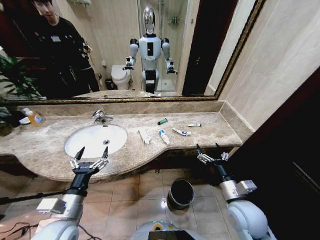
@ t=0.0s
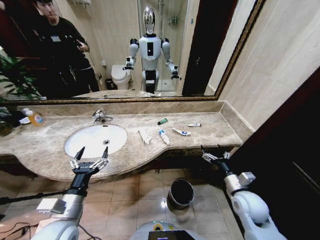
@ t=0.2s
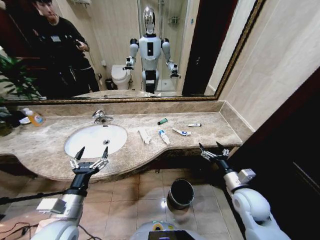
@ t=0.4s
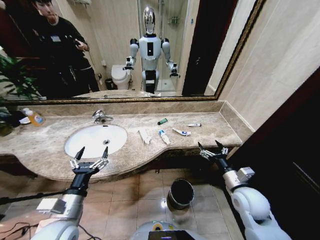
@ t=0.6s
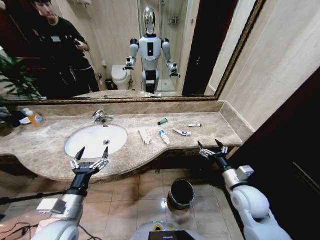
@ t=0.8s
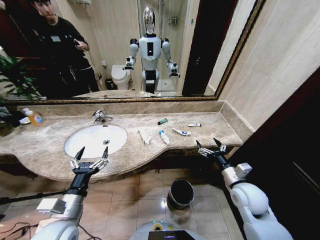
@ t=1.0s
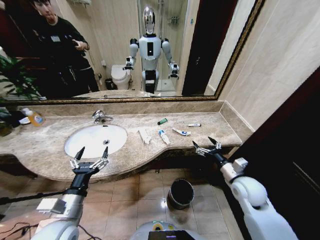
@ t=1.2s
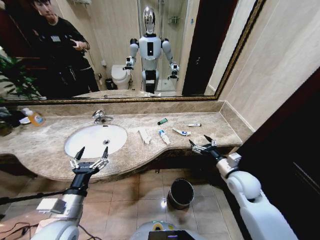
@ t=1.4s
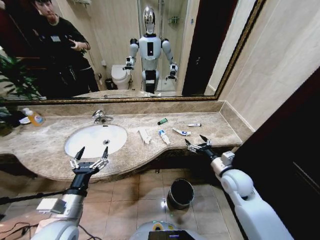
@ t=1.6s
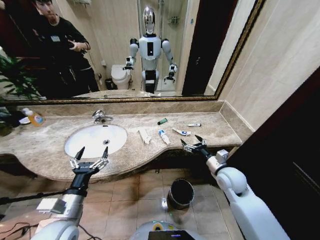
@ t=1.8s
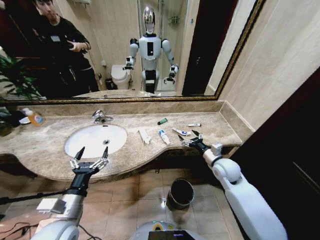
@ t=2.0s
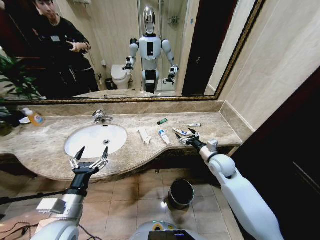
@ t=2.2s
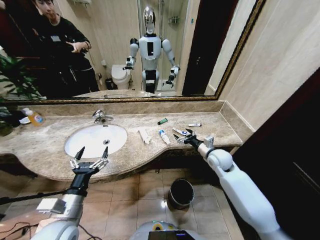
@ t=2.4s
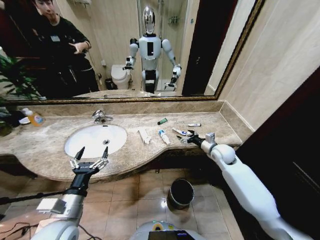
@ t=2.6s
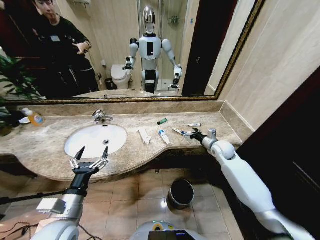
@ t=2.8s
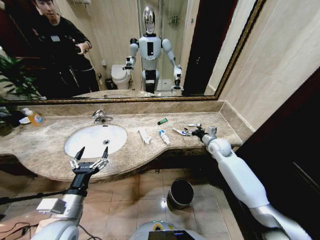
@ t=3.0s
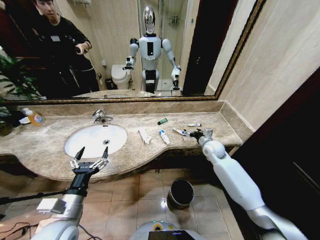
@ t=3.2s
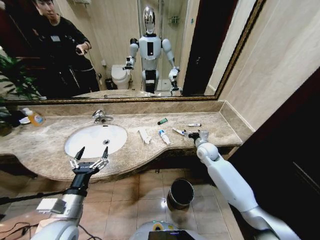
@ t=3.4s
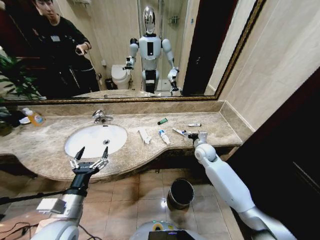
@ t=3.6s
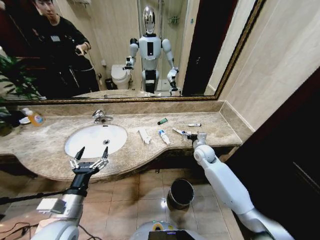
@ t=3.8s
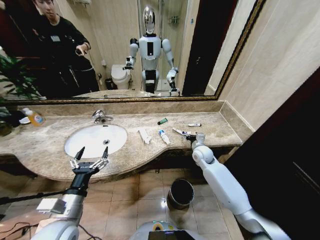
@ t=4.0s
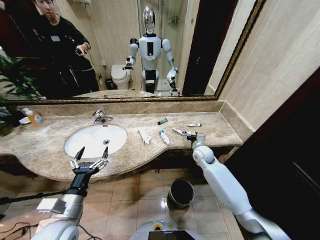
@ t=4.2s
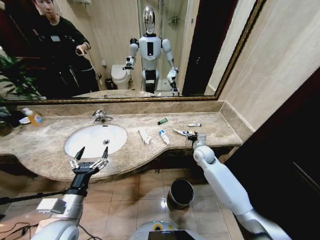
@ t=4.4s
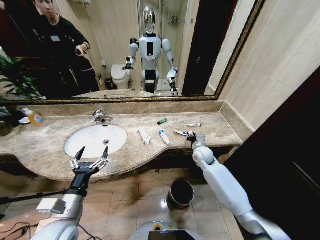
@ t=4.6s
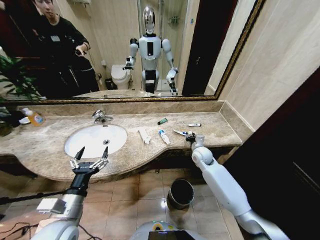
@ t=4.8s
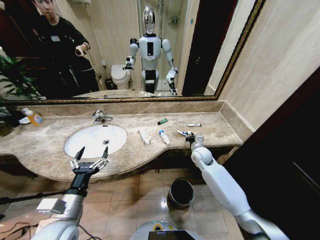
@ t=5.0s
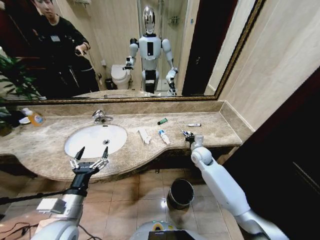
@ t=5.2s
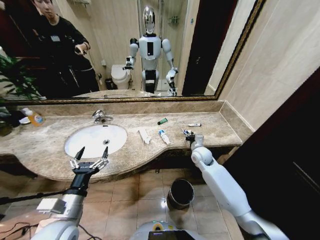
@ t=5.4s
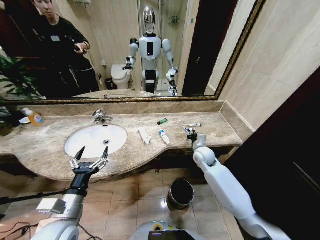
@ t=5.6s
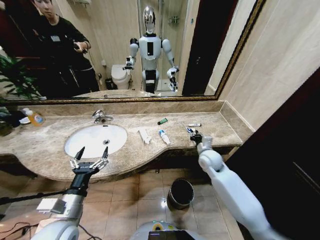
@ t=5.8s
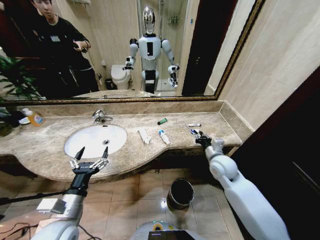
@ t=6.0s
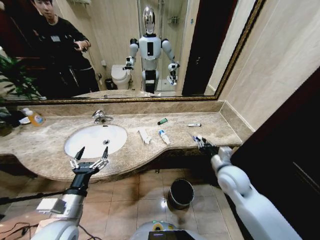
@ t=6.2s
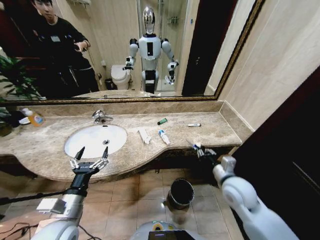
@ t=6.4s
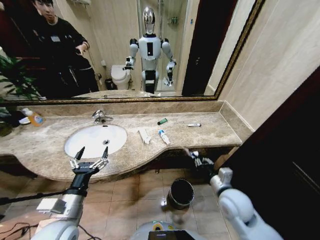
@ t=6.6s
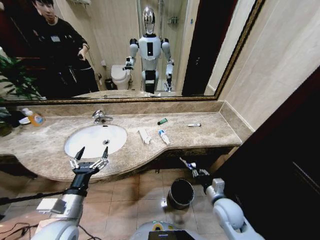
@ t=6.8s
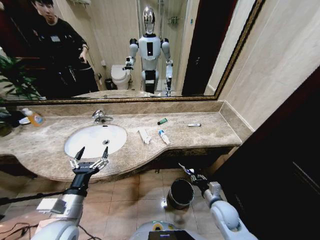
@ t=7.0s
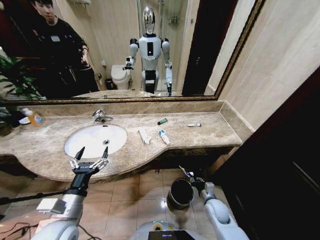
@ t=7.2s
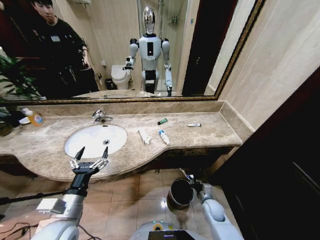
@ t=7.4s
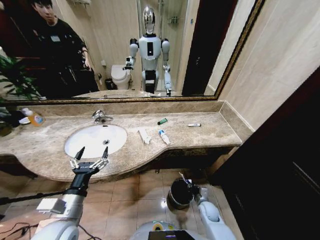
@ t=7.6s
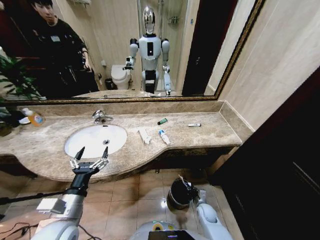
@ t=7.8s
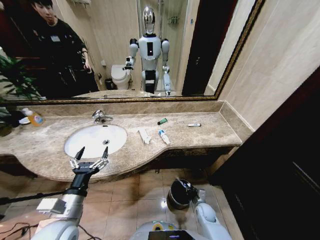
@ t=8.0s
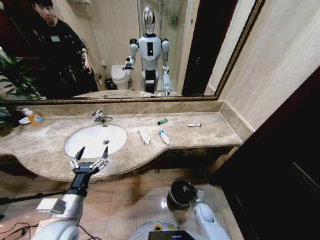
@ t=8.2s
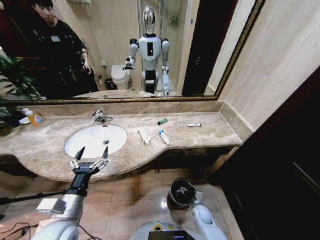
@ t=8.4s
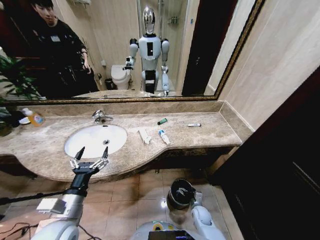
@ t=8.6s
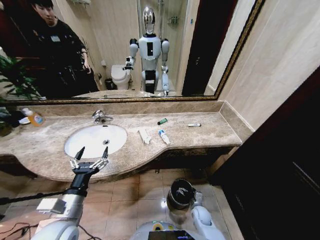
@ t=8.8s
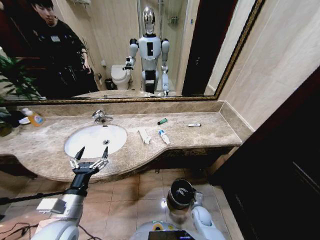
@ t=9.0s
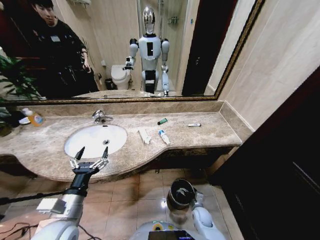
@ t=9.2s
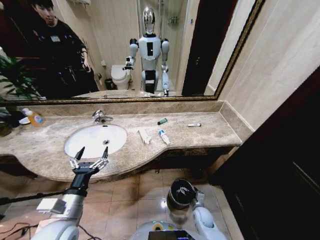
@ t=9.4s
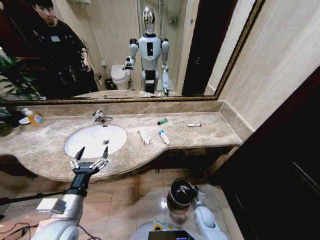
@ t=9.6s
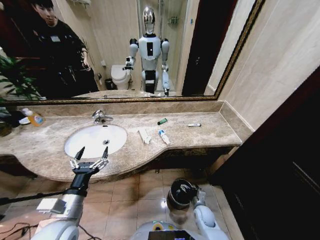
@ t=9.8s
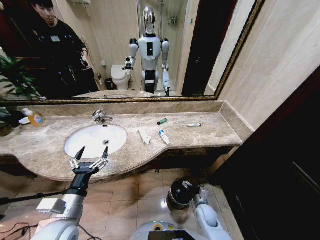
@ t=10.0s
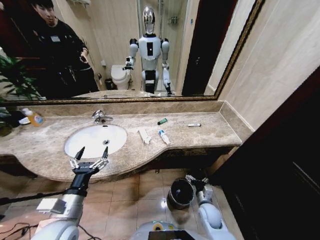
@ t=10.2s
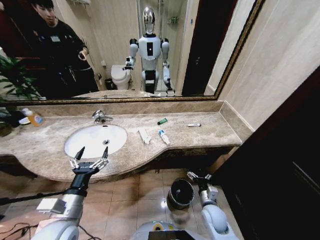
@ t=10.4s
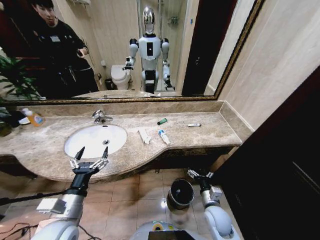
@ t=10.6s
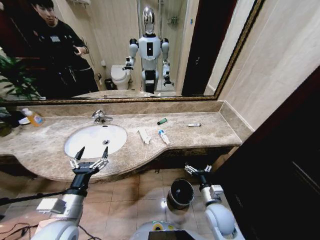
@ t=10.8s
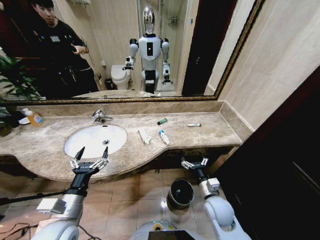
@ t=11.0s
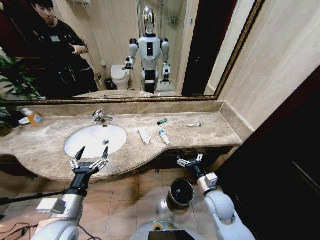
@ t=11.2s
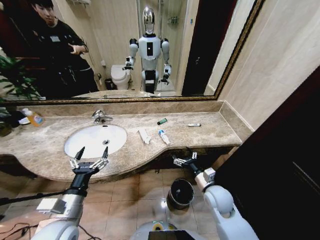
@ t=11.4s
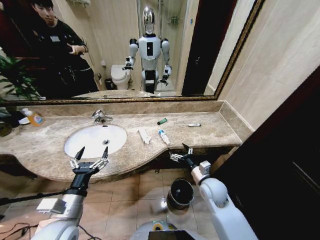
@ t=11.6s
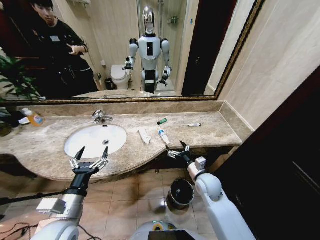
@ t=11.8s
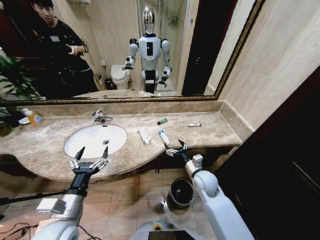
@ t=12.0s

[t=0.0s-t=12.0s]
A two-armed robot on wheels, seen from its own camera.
Task of the whole recording: Pick up the trash from the sink and place it in the trash bin.
t=1.6s to t=3.0s: The right gripper is displaced forward by some 15 cm.
t=3.0s to t=4.4s: The right gripper shifts about 5 cm to the left, and closes.
t=4.4s to t=6.0s: The right gripper travels backward and upward by roughly 10 cm, and closes.
t=6.0s to t=7.6s: The right gripper travels downward by some 30 cm.
t=7.6s to t=9.0s: The right gripper ends up about 5 cm from where it was, and opens its fingers.
t=9.0s to t=10.4s: The right gripper goes roughly 15 cm upward.
t=10.4s to t=12.0s: The right gripper is displaced upward and forward by approximately 15 cm.

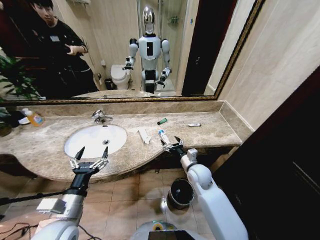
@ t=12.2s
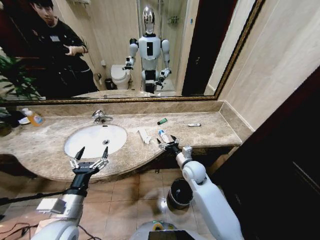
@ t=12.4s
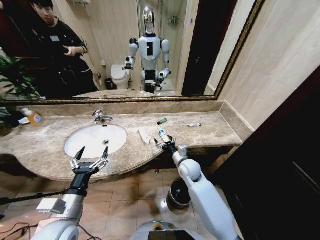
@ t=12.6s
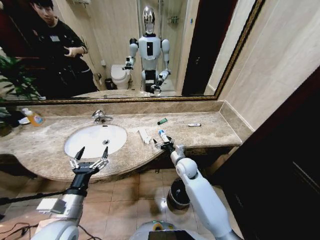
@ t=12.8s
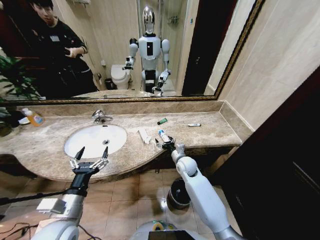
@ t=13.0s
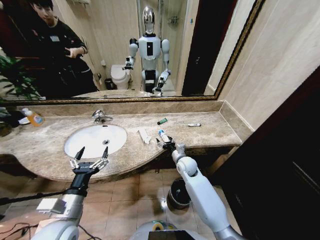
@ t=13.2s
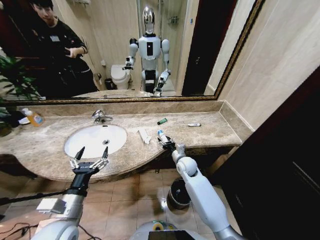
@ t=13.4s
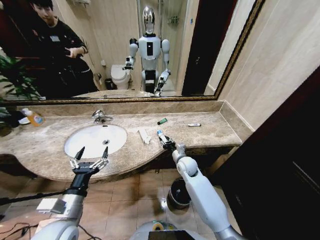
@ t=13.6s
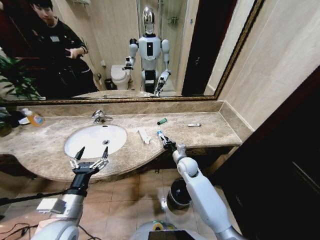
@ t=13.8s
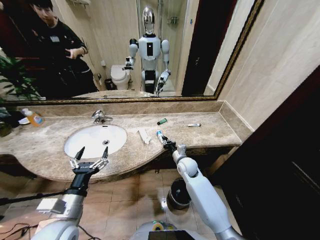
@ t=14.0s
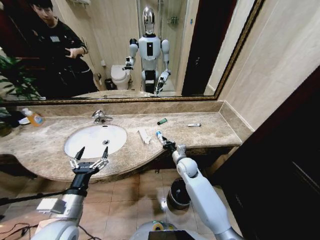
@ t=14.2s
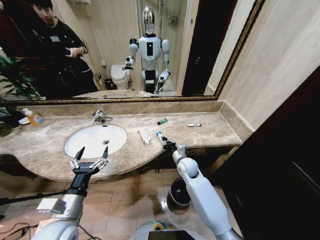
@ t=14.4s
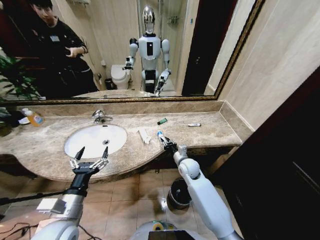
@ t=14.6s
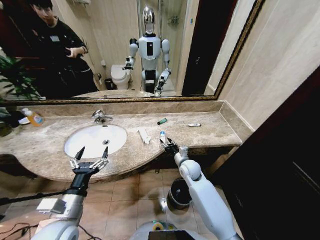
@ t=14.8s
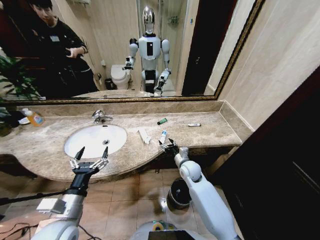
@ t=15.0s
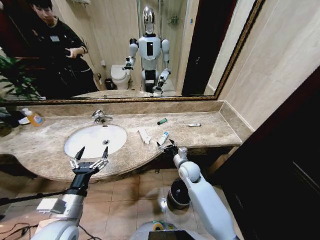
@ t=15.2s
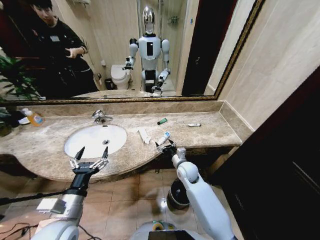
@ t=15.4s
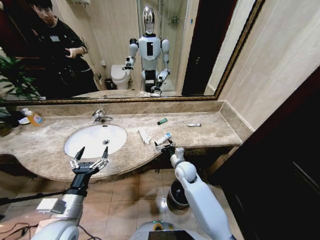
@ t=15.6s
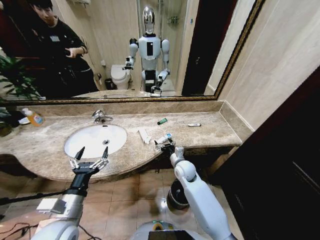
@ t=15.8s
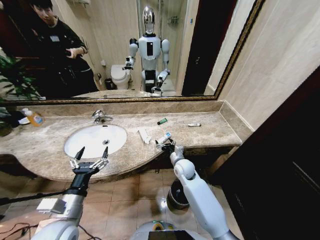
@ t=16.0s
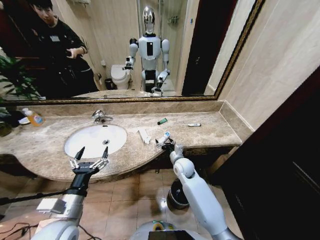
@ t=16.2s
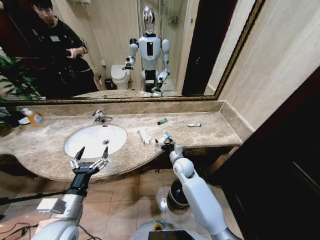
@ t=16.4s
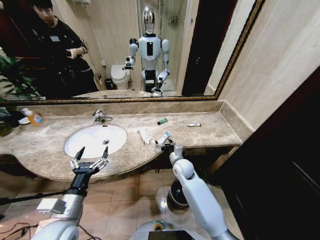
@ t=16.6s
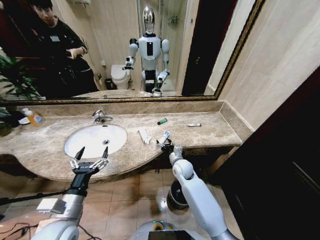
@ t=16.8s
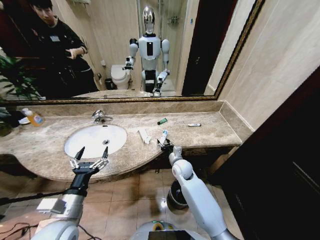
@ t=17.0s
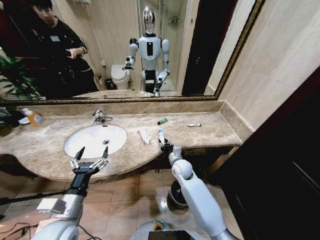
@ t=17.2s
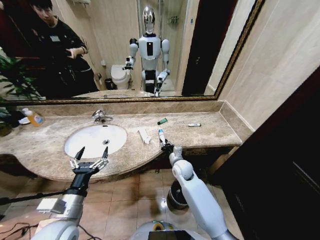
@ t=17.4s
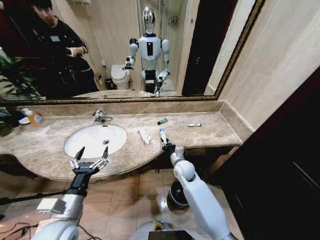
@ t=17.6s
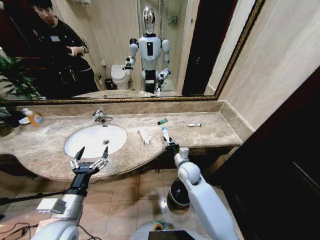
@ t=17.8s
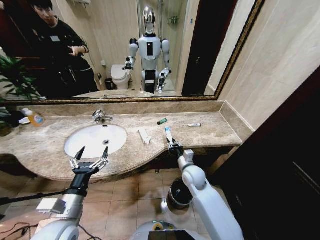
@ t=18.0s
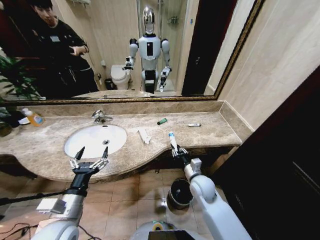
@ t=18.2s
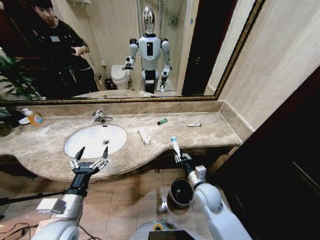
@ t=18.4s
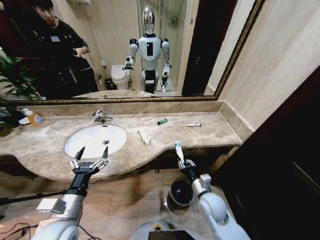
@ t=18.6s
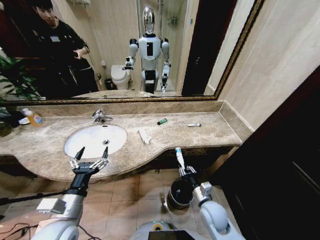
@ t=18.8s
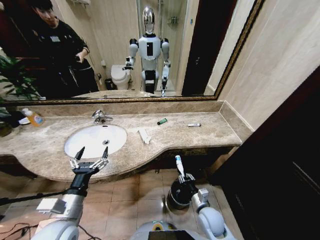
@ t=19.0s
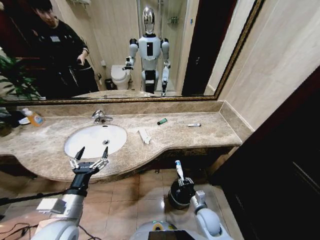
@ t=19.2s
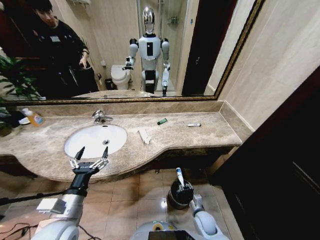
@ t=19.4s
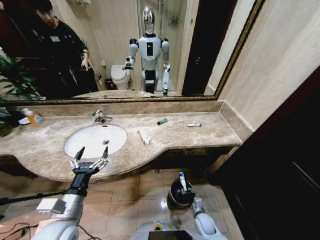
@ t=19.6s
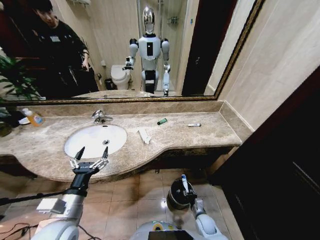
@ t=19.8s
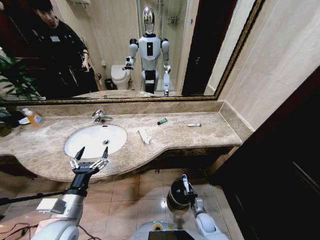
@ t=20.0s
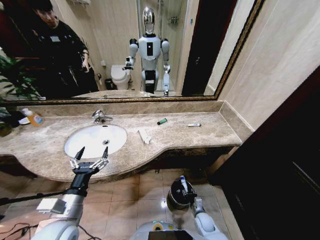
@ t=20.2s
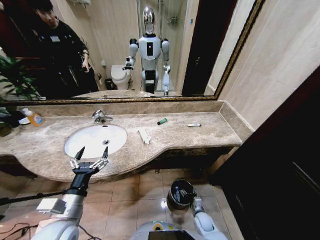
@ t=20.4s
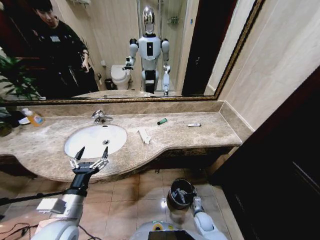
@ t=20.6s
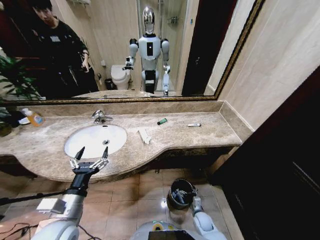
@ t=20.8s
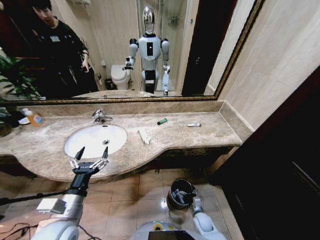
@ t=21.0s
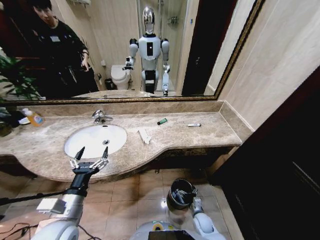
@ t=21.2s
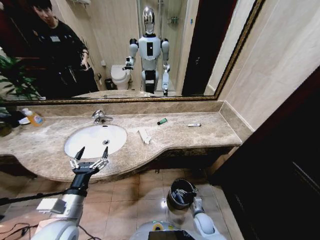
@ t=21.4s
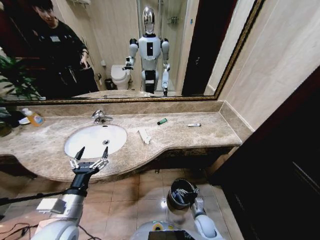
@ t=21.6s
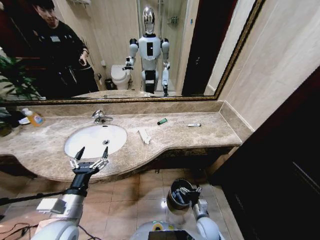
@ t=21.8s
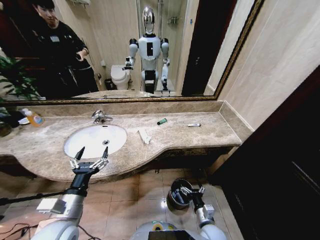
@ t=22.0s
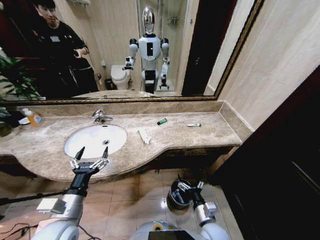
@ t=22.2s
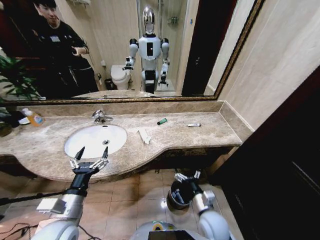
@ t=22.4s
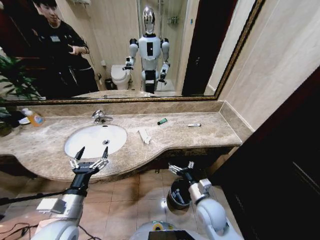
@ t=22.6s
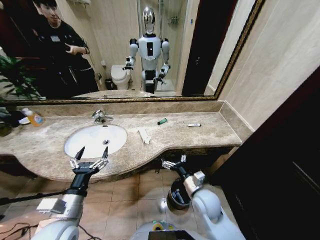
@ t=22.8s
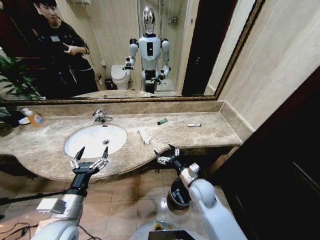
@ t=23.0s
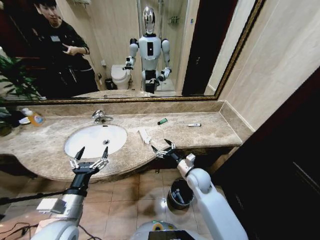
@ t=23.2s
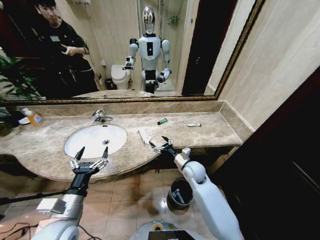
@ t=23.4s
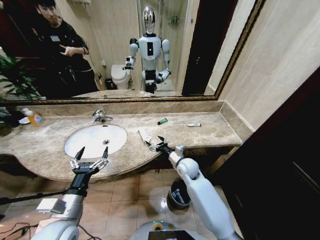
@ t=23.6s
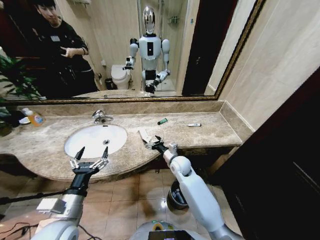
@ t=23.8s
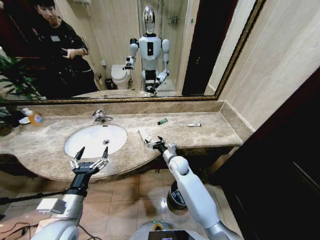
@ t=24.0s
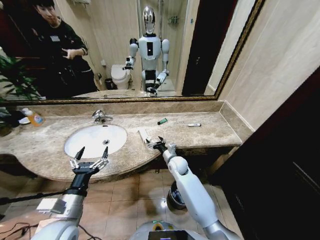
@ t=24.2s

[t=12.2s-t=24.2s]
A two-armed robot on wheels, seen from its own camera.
Task of the whole recording: Pick up the trash from the sink and place it in the trash bin.
t=12.2s to t=13.8s: The right gripper shifts about 5 cm forward, and closes its fingers.
t=13.8s to t=15.2s: The right gripper opens its fingers.
t=15.2s to t=16.6s: There are only small adjustments of the grippers.
t=16.6s to t=18.2s: The right gripper heads backward and to the right, covering about 10 cm, and closes.
t=18.2s to t=19.8s: The right gripper heads downward, covering about 25 cm.
t=19.8s to t=21.2s: The right gripper opens its fingers.
t=21.2s to t=22.6s: The right gripper is displaced upward by about 25 cm.
t=22.6s to t=24.2s: The right gripper travels forward by roughly 20 cm.
